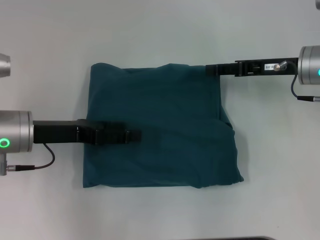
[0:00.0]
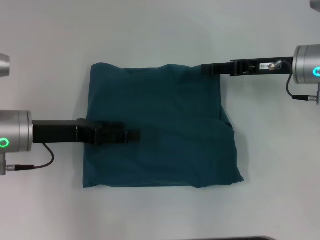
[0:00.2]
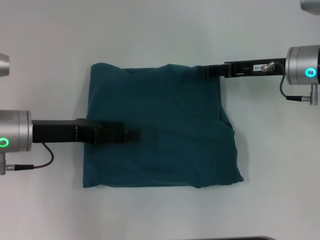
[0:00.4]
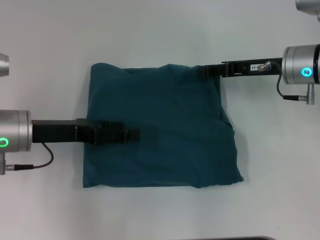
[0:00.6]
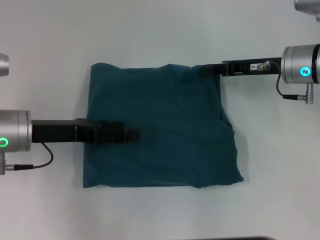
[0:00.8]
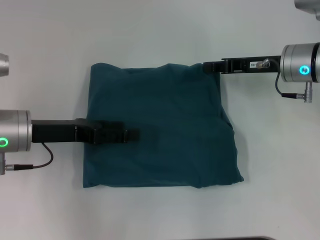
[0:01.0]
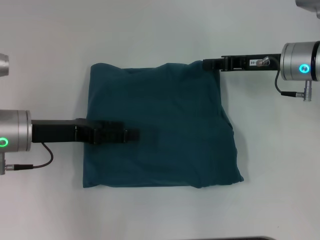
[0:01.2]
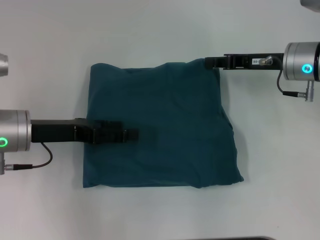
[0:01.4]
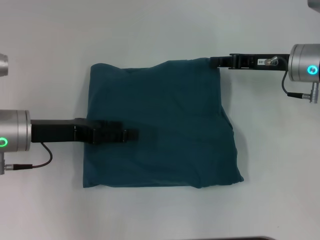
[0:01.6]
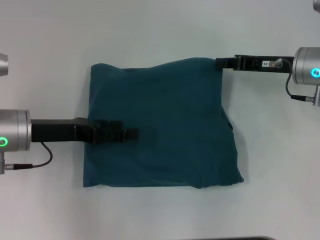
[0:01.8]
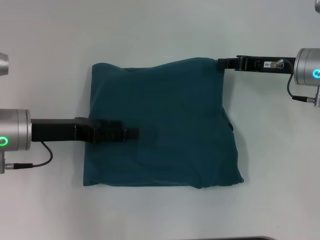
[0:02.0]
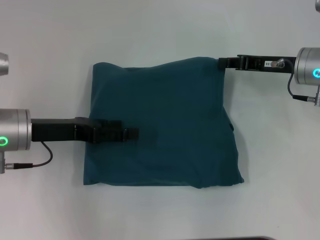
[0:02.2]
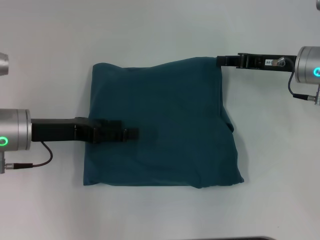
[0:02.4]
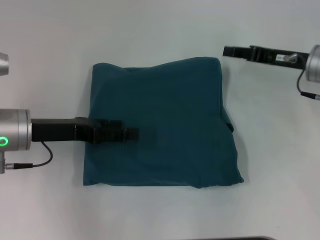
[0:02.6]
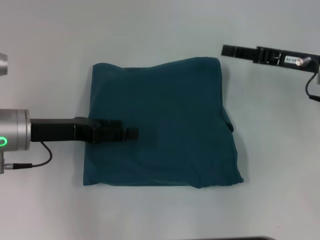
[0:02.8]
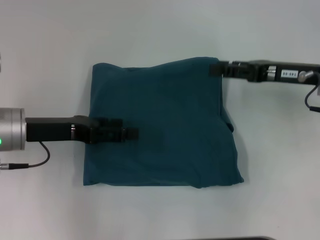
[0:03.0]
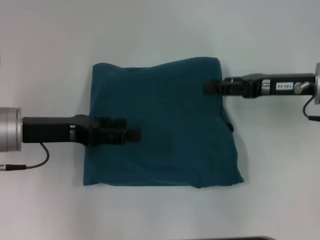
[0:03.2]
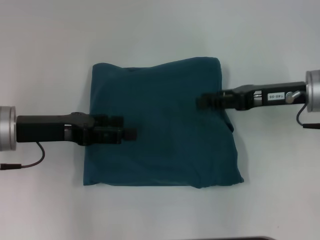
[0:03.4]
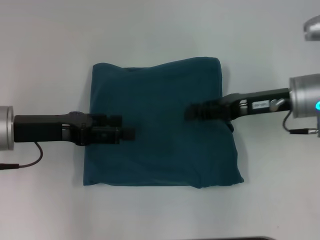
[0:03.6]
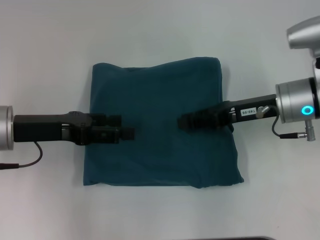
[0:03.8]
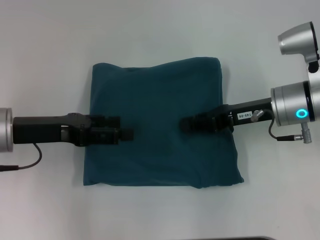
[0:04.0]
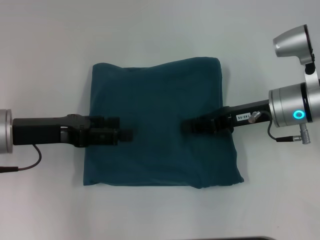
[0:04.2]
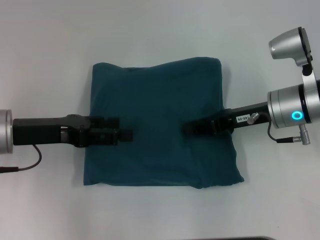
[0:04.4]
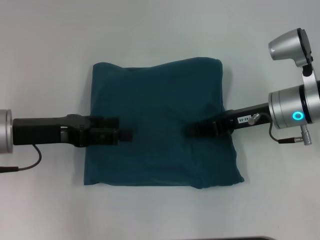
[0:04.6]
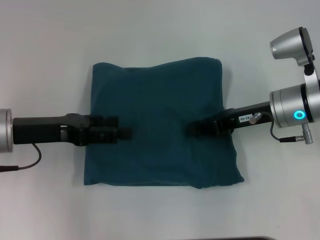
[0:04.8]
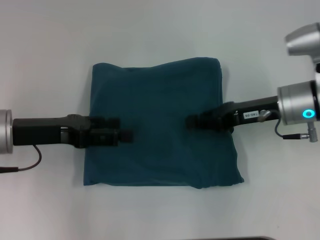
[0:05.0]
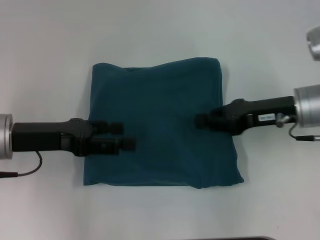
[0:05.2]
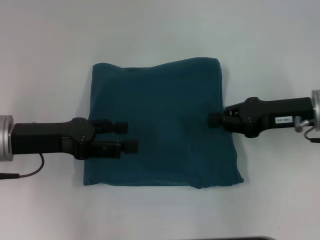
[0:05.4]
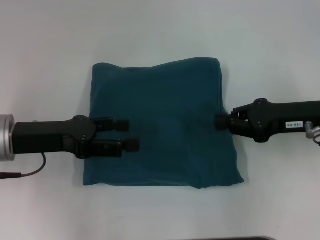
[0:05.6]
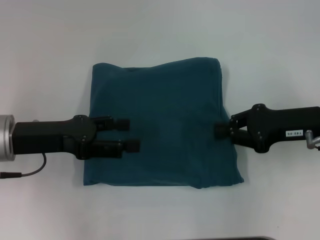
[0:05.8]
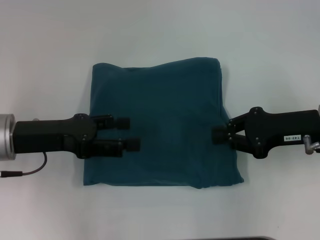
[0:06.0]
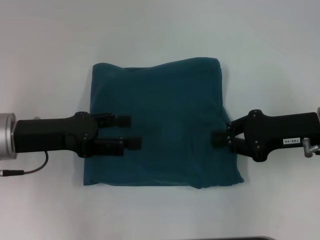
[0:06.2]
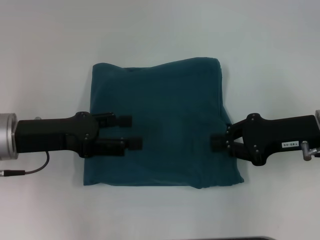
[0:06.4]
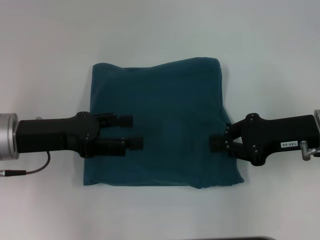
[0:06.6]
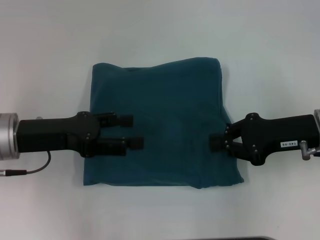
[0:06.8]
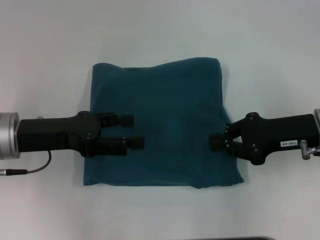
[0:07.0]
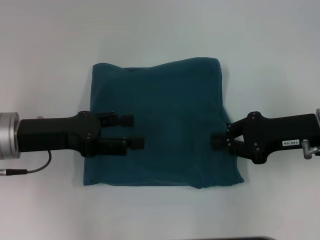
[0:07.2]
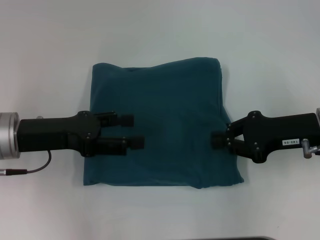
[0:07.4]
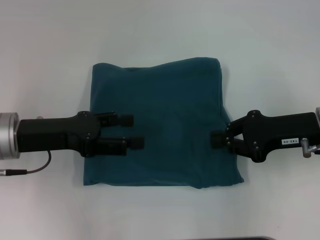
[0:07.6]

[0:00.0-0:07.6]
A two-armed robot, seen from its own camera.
0:00.0 to 0:01.6: The right gripper closes.
0:01.6 to 0:03.0: The right gripper opens up.
0:03.0 to 0:04.6: The right gripper goes some 5 cm to the left, and closes its fingers.
0:04.6 to 0:06.0: The right gripper goes about 5 cm to the right.
0:06.0 to 0:07.6: The two grippers keep their place.

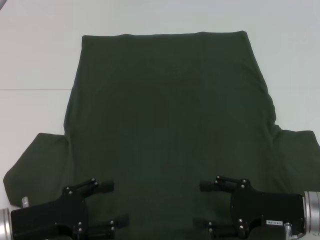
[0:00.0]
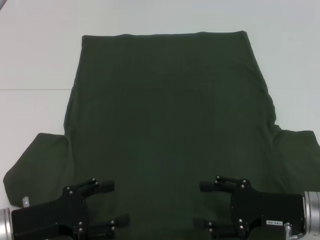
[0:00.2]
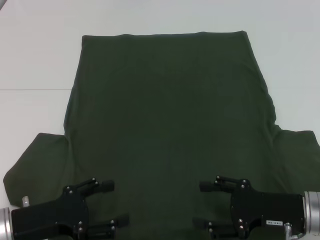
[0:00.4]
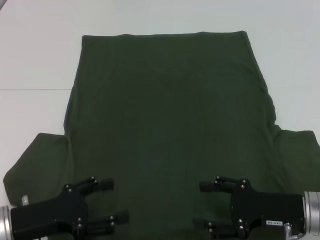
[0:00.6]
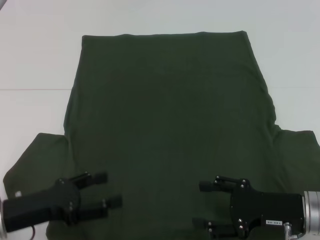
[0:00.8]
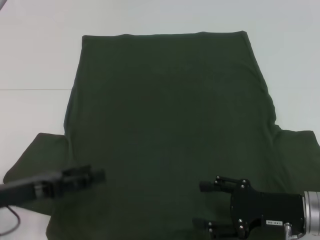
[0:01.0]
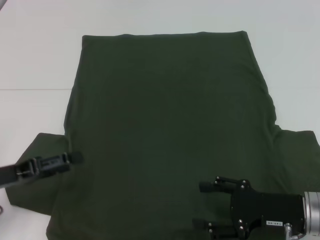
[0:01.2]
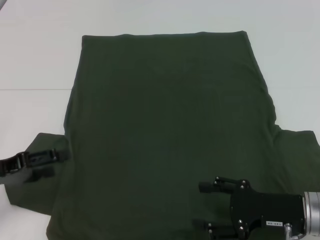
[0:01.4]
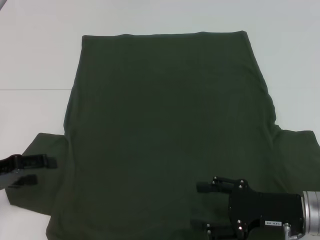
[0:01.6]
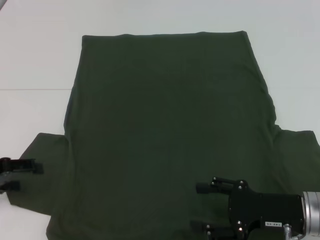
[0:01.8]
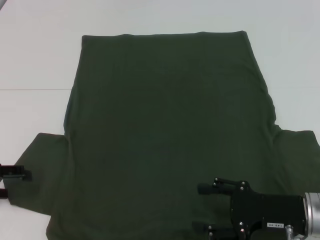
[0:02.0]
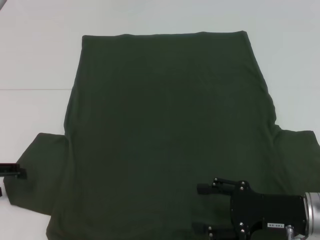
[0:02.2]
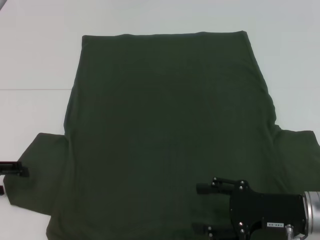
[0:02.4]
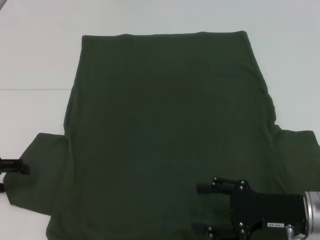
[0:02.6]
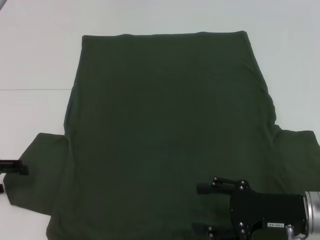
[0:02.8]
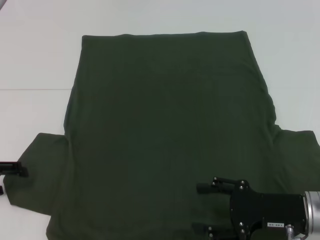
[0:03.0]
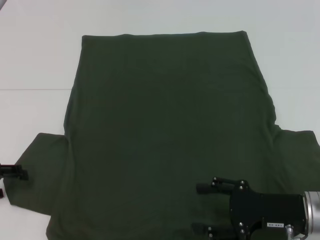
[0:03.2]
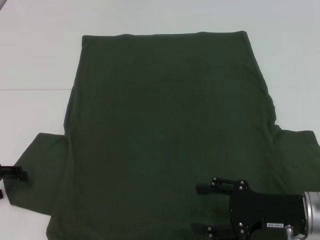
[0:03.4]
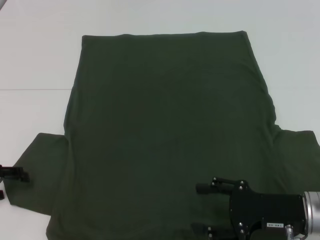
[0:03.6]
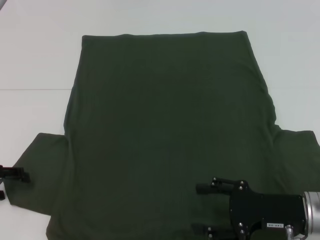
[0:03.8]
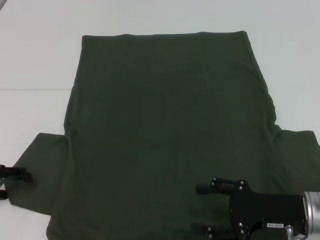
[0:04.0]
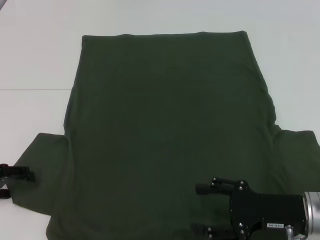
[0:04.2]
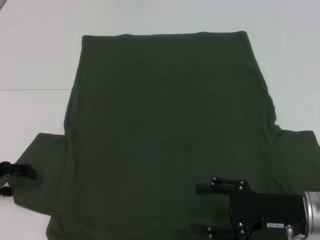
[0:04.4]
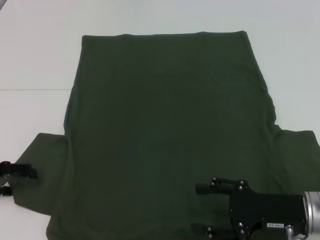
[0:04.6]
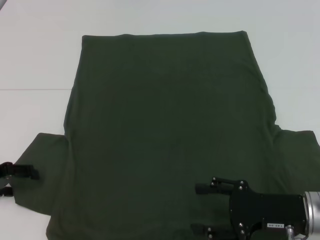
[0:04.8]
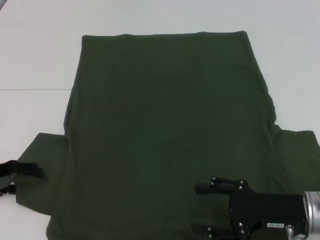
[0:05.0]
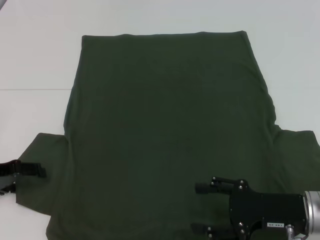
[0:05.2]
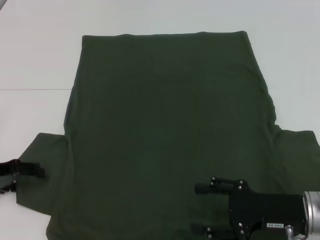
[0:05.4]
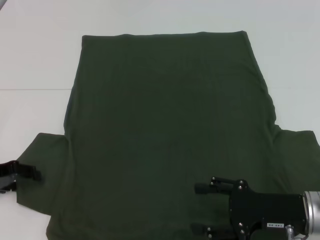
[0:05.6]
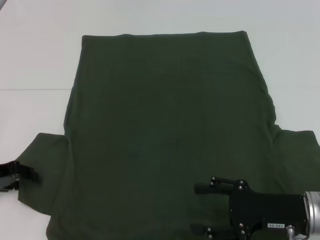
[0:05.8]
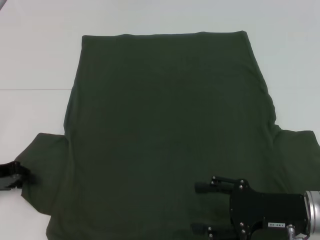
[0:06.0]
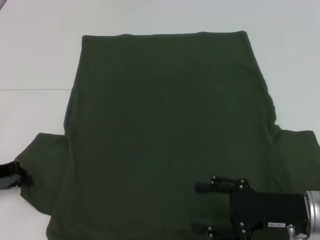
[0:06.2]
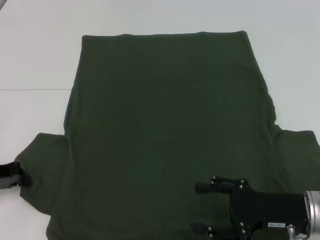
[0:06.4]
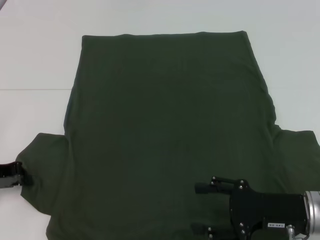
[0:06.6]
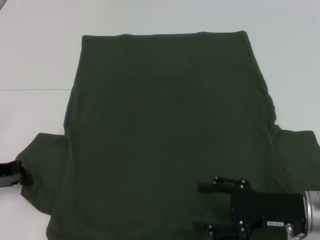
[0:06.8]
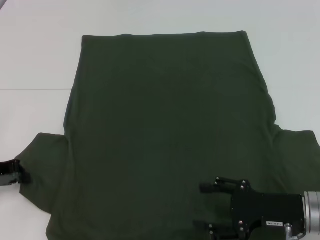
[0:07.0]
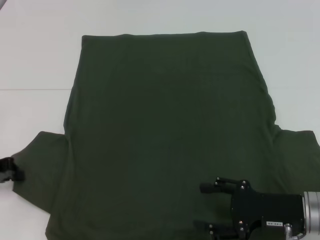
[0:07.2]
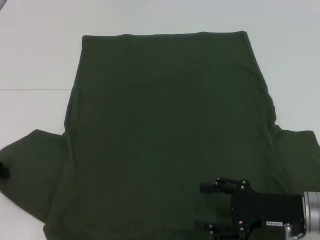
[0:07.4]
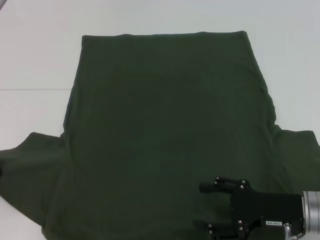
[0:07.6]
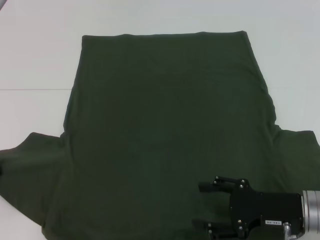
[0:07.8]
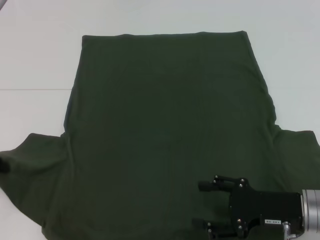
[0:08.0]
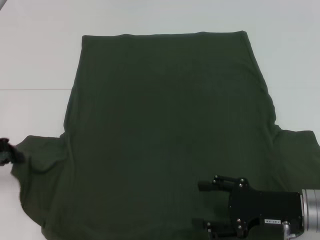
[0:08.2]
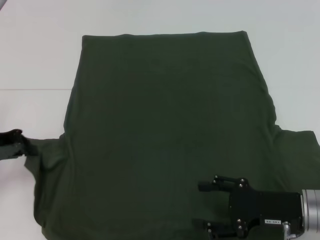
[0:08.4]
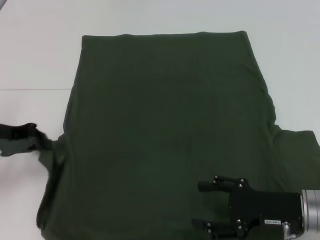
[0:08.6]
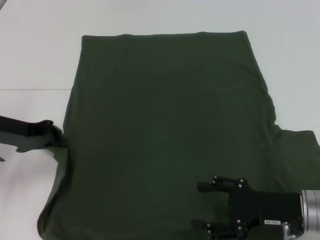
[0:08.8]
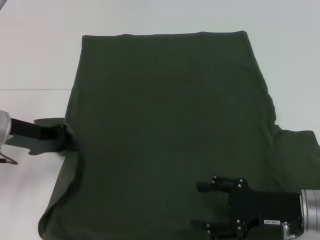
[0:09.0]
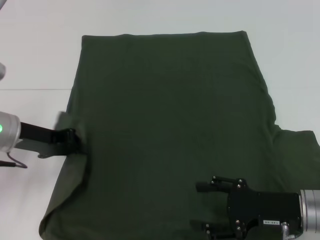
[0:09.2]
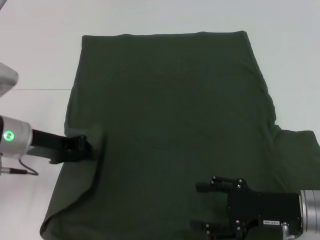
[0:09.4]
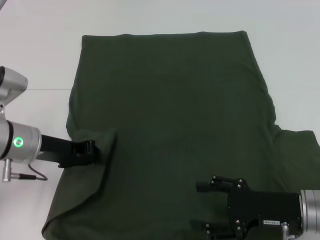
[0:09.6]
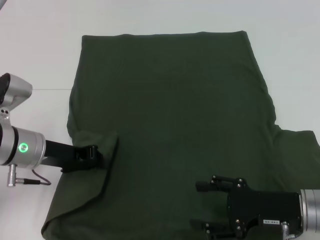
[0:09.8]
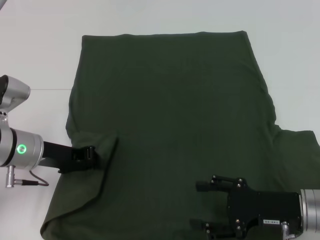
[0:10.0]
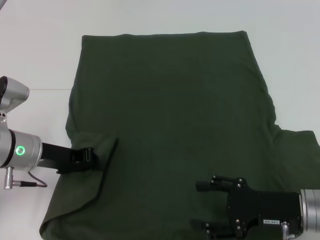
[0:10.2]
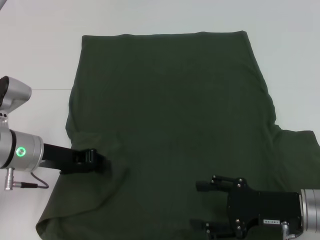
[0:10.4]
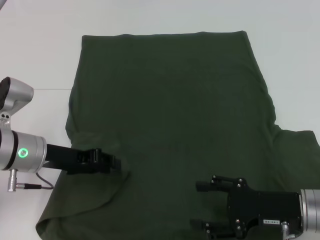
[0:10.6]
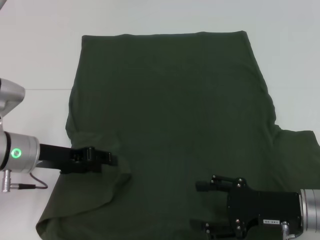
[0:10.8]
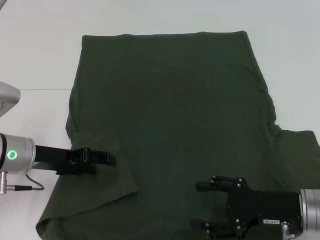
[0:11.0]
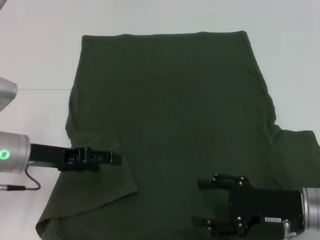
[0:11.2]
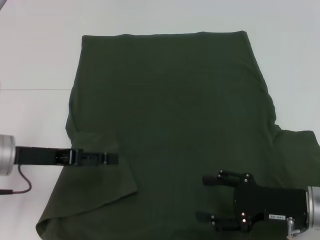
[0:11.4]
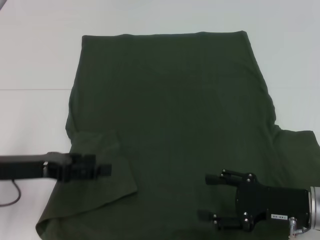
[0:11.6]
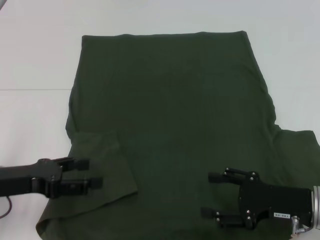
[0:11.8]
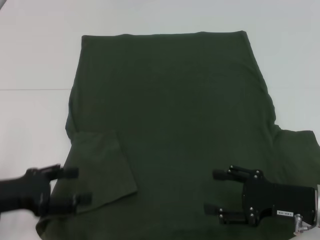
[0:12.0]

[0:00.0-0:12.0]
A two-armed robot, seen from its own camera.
0:00.0 to 0:01.6: The left gripper is displaced to the left and forward by some 10 cm.
0:01.6 to 0:03.0: The grippers stay close to where they were, moving slightly.
0:04.4 to 0:06.0: The grippers stay close to where they were, moving slightly.
0:06.0 to 0:07.6: The left gripper closes up.
0:07.6 to 0:09.0: The left gripper heads to the right, covering about 10 cm.
0:09.0 to 0:10.4: The left gripper shifts by some 5 cm.
0:10.4 to 0:12.0: The left gripper is displaced backward and to the left by some 10 cm, and opens its fingers.

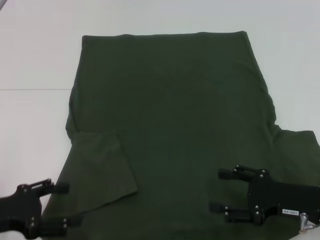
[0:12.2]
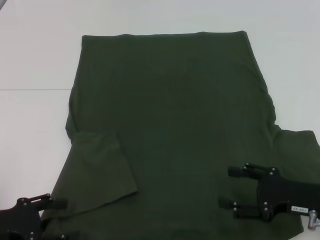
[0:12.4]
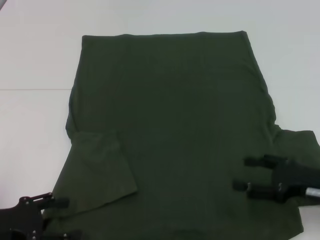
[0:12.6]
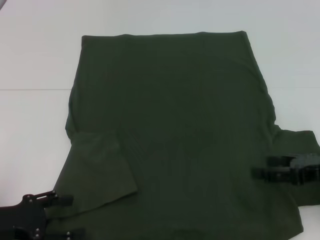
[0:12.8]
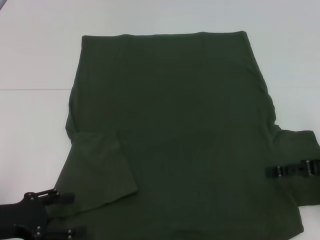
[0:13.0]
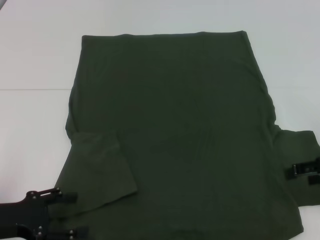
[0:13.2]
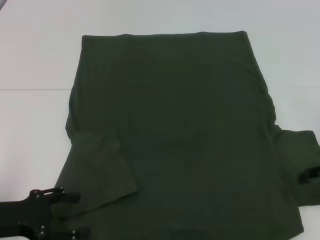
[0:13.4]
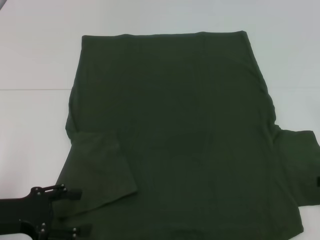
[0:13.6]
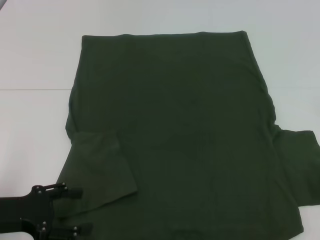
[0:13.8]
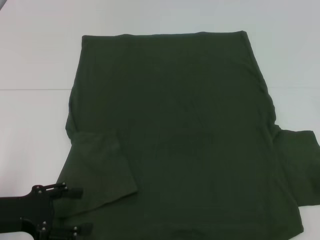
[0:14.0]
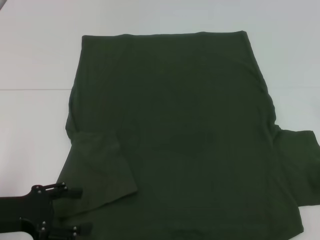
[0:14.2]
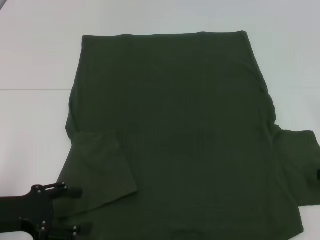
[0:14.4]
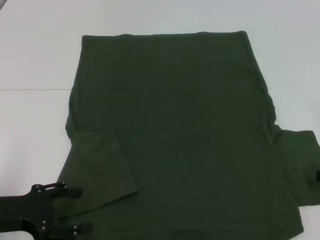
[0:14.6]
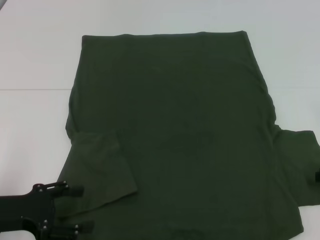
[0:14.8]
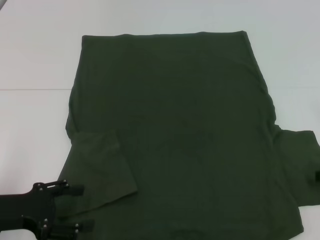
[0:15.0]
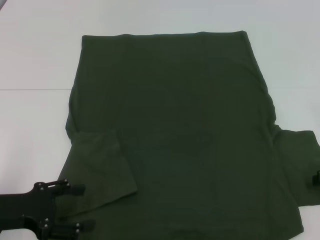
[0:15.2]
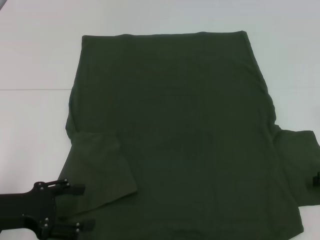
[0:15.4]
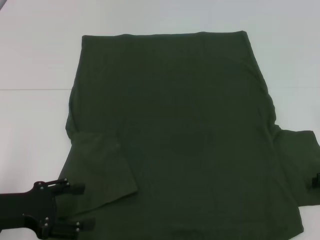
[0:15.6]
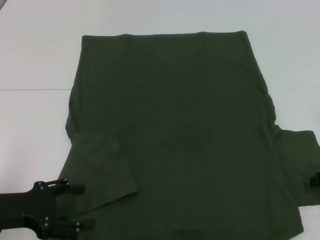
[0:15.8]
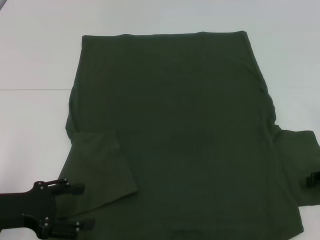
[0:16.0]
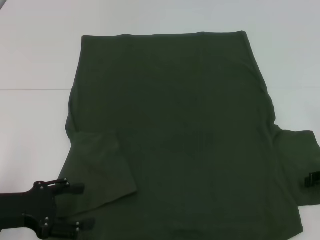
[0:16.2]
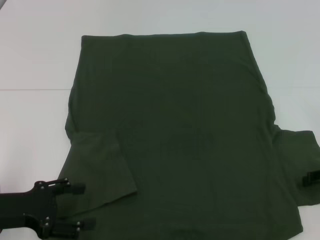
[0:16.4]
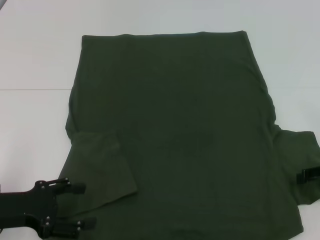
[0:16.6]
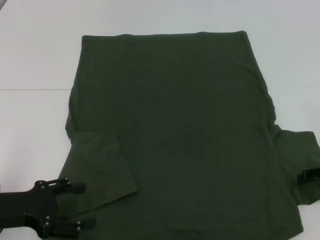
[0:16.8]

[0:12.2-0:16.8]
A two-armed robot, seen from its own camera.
0:12.2 to 0:13.8: The right gripper is displaced to the right and upward by approximately 15 cm.
0:15.2 to 0:16.8: The grippers stay close to where they were, moving slightly.
